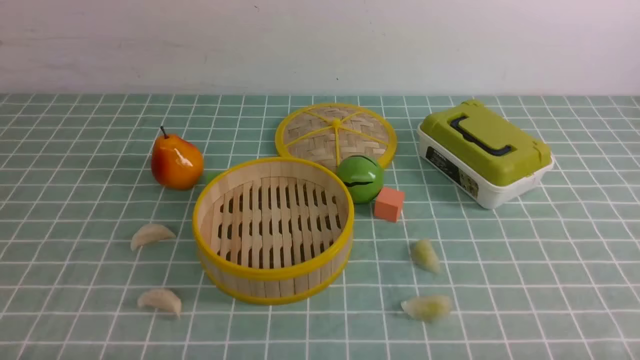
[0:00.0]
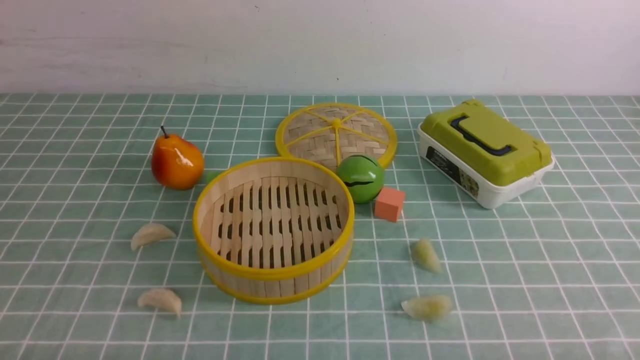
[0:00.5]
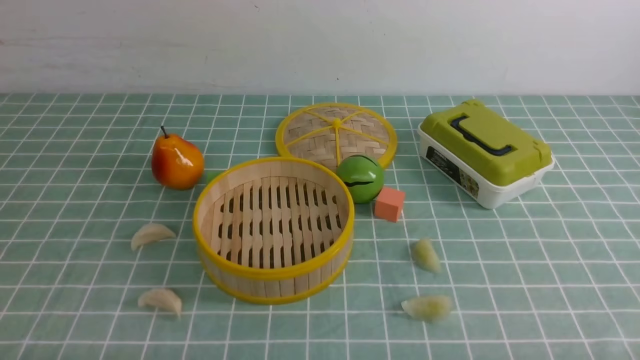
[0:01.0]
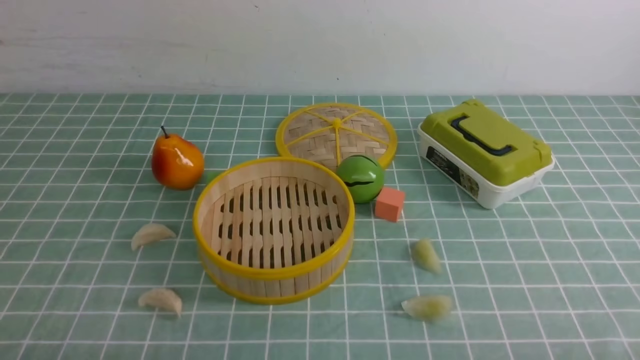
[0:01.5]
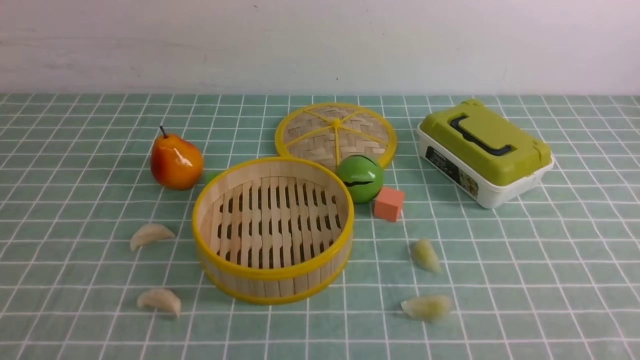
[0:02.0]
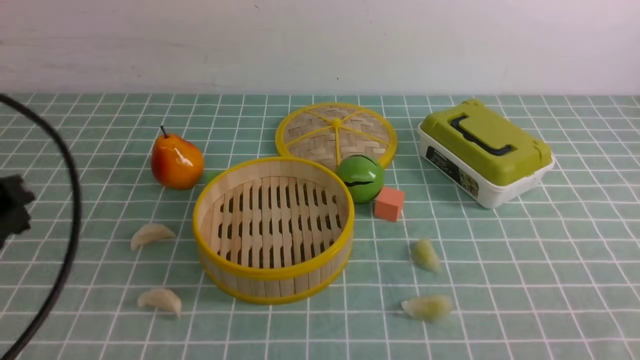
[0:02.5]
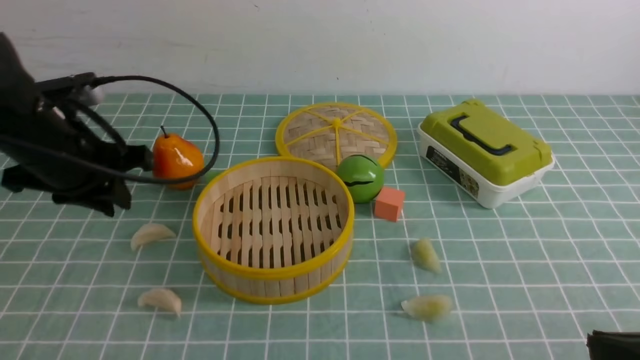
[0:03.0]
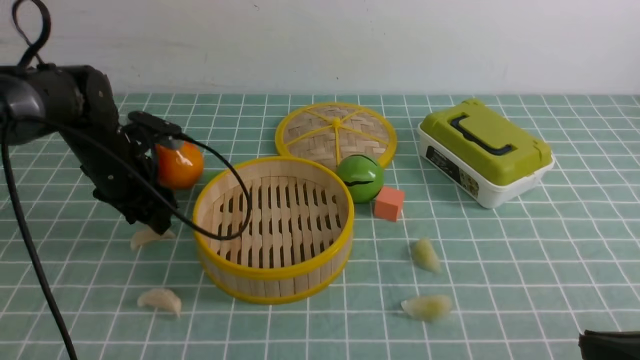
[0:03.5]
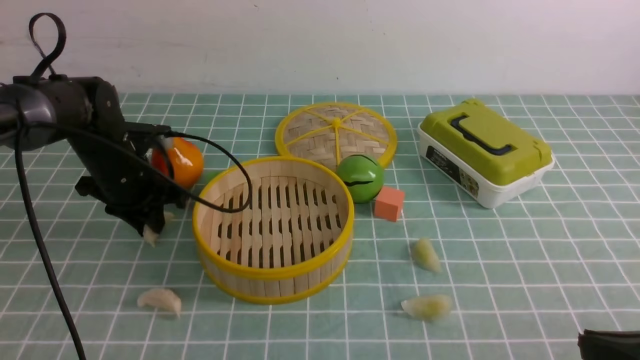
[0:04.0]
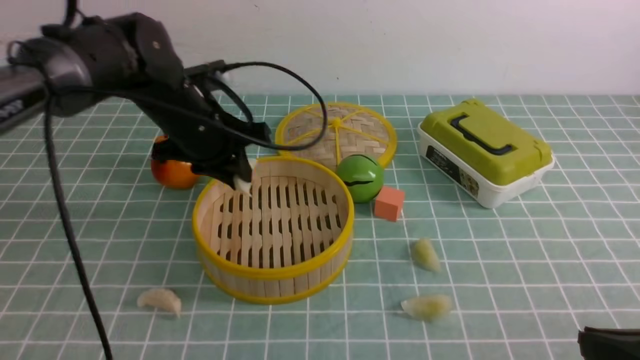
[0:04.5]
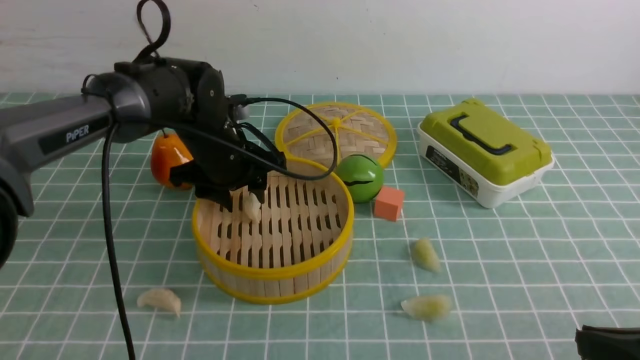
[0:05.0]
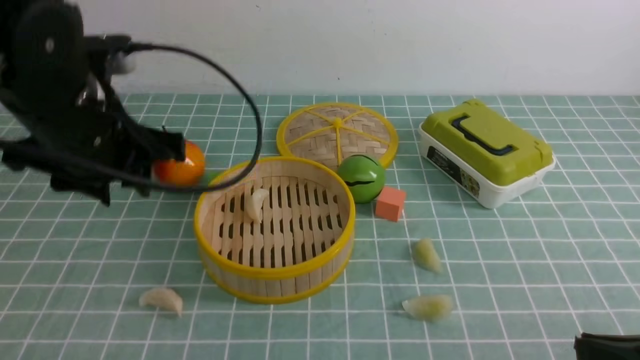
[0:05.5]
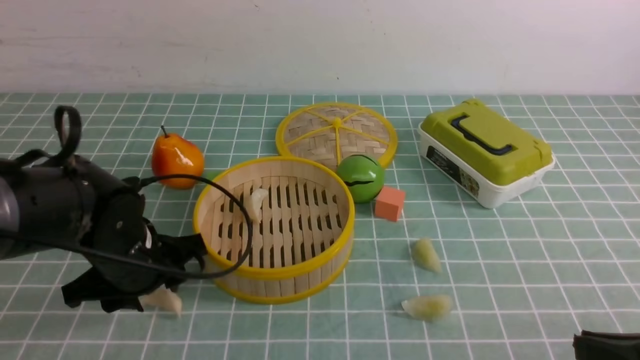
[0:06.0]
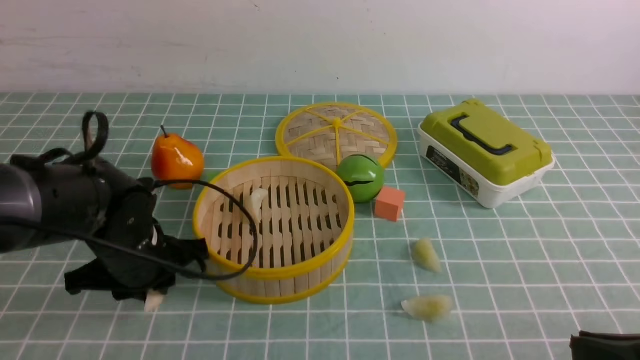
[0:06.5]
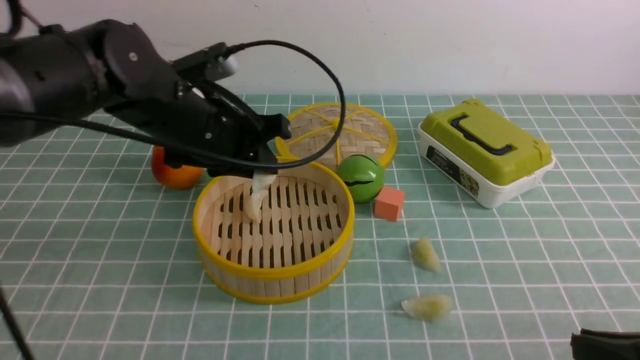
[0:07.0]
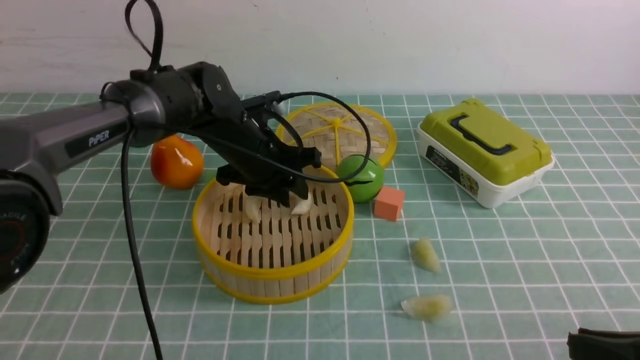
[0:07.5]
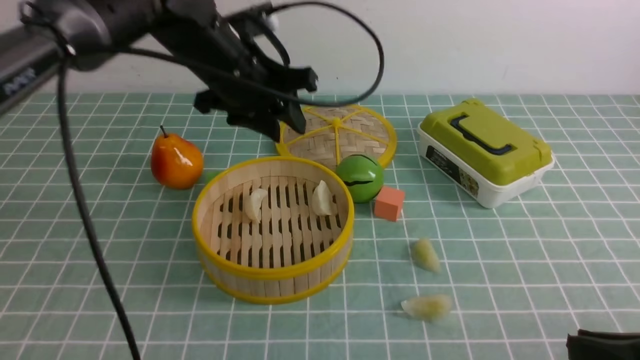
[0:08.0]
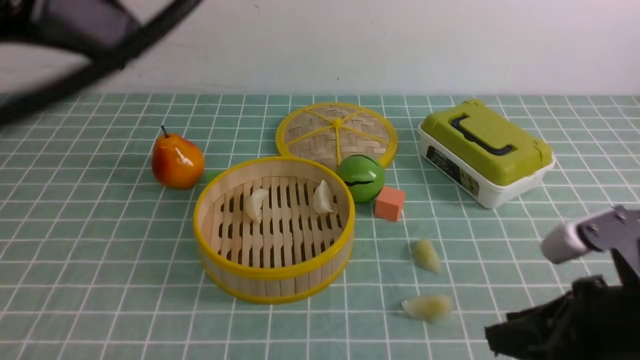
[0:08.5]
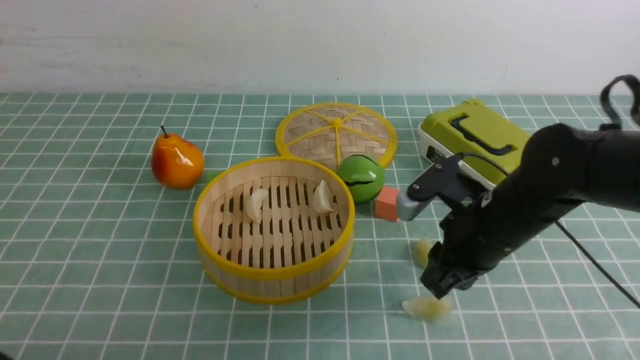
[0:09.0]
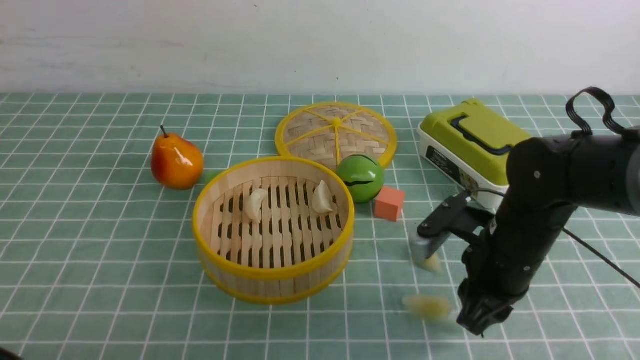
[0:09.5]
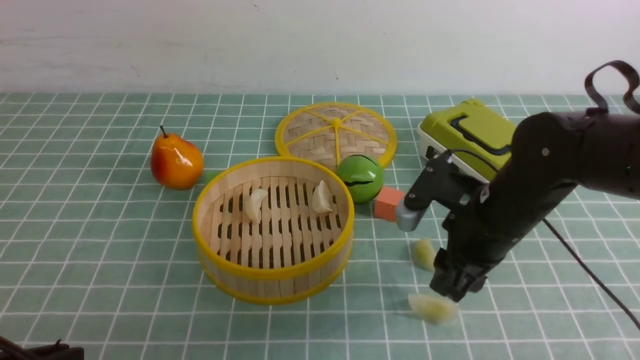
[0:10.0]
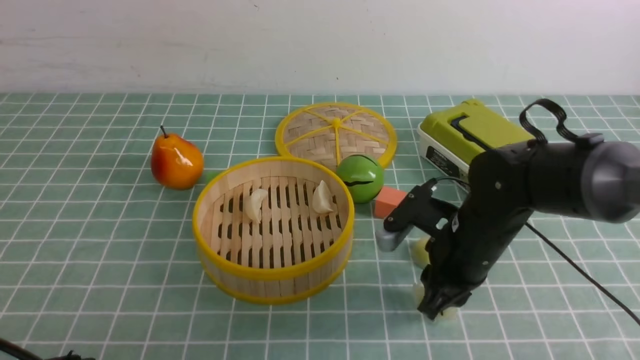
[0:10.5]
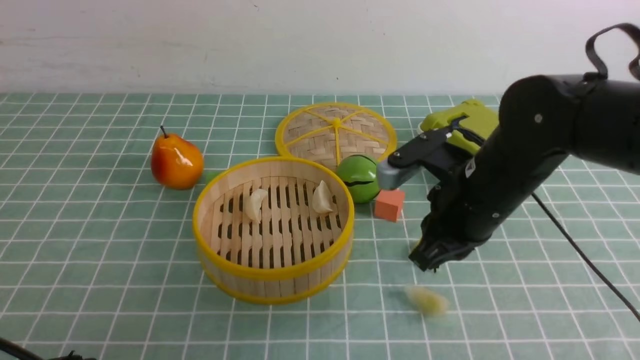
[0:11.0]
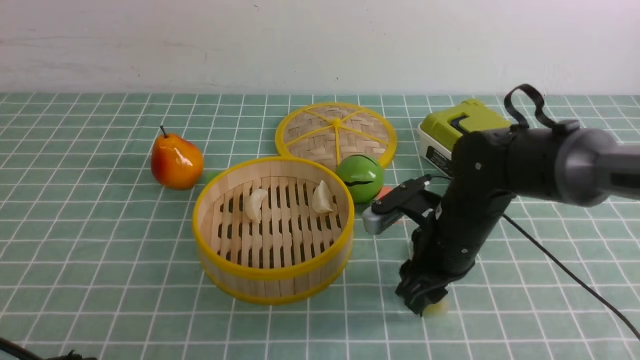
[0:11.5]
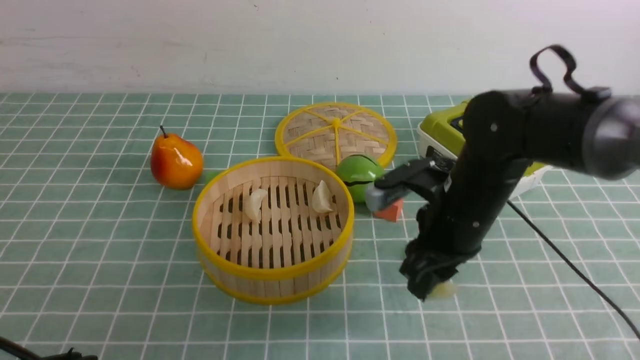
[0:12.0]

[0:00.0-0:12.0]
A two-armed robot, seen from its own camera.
Task of the whole recording: put the dumplings into the steamer on the table with the blue tablecloth.
Step, 0:00.0 to 0:04.0: use the left arm to grab a dumpling.
Step, 0:04.5 to 0:05.0: use the left arm to put the dumpling into the steamer.
Step, 0:06.0 to 0:06.5: use the left arm to grab a dumpling.
Step, 0:07.0 to 0:07.5: use the left arm to put the dumpling into the steamer.
0:02.0 to 0:04.0: The left gripper moves forward, some 40 cm, and opens and closes again. The right gripper travels forward by roughly 10 cm.
0:04.0 to 0:06.0: The left gripper travels backward by some 15 cm, and opens its fingers.
0:06.0 to 0:08.0: The left gripper goes up and down, roughly 15 cm each way, reversing 2 times.
0:08.0 to 0:10.0: The left gripper travels backward by approximately 30 cm, and closes. The right gripper is displaced forward and to the left by about 25 cm, and opens.
0:10.0 to 0:12.0: The right gripper shifts by roughly 5 cm, and closes, then opens again.

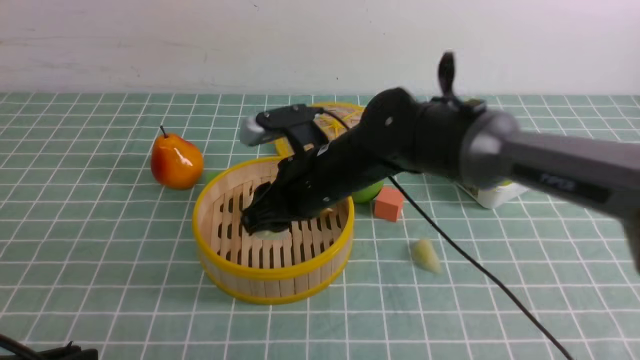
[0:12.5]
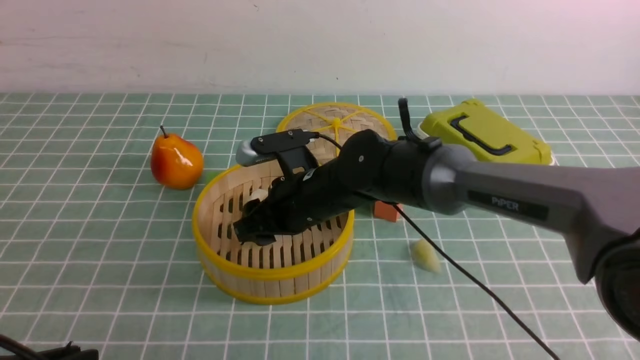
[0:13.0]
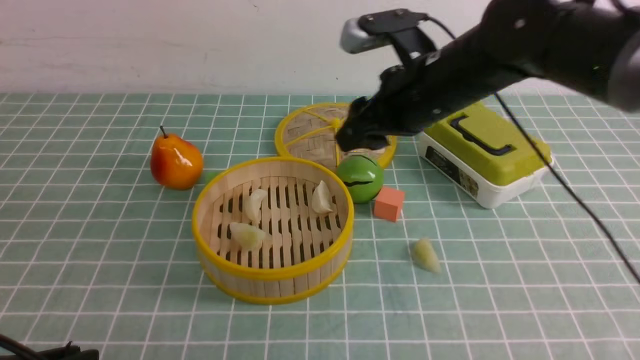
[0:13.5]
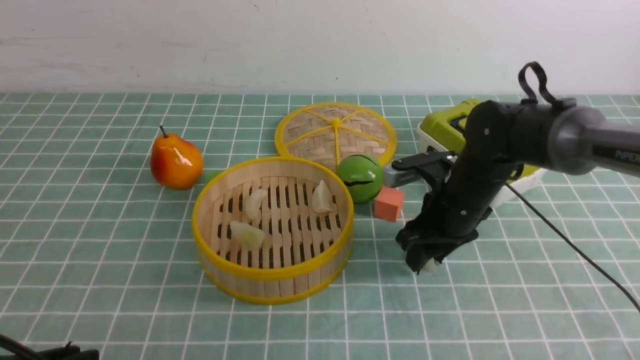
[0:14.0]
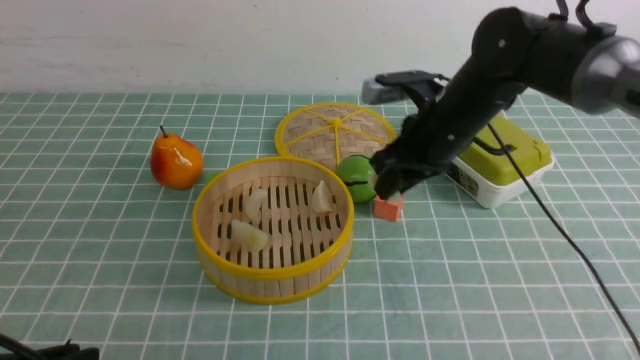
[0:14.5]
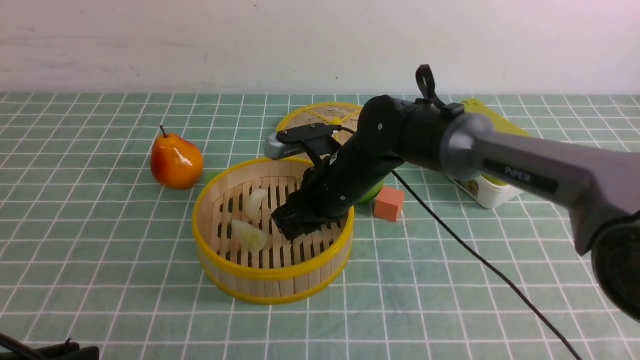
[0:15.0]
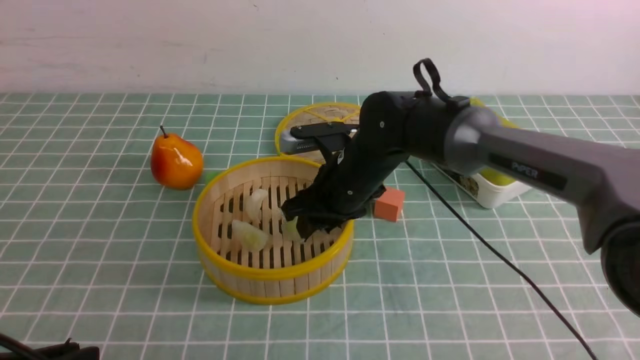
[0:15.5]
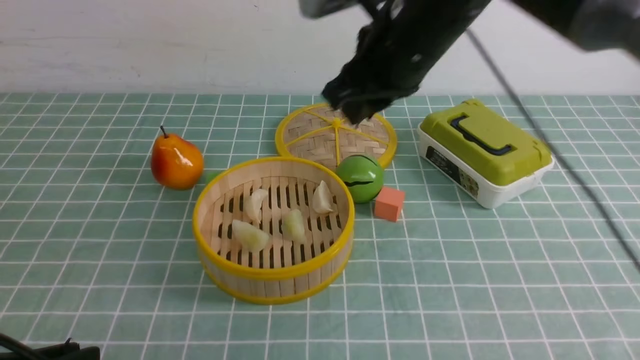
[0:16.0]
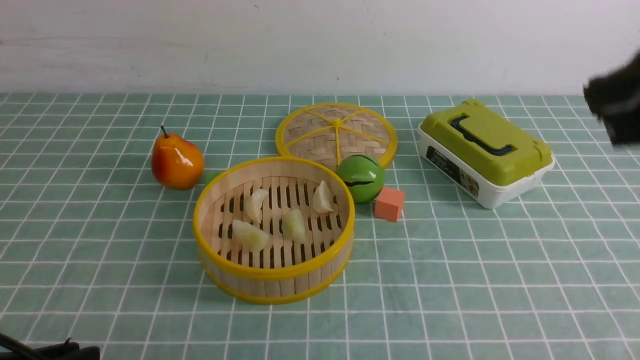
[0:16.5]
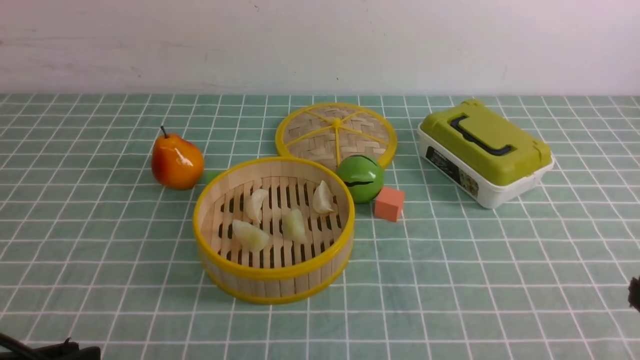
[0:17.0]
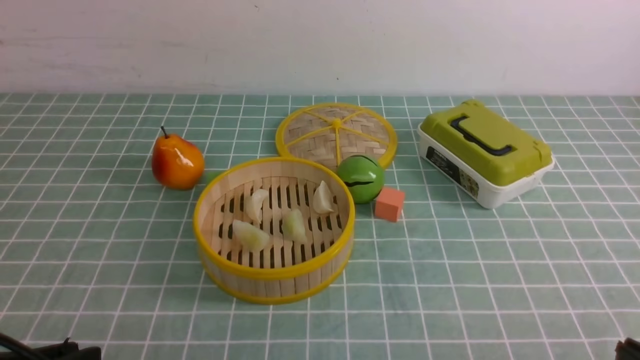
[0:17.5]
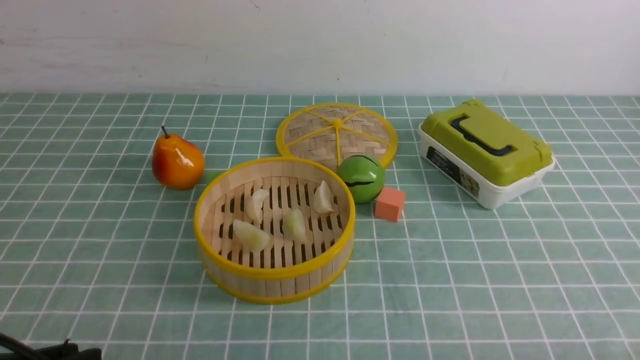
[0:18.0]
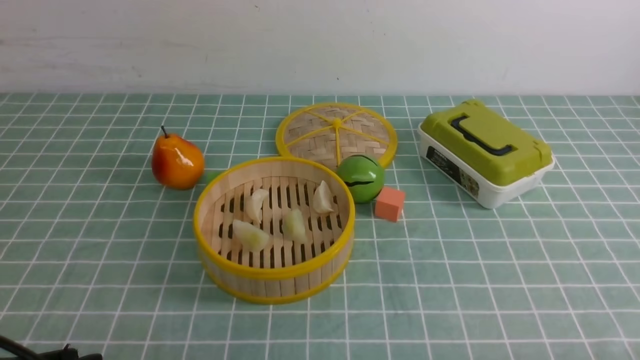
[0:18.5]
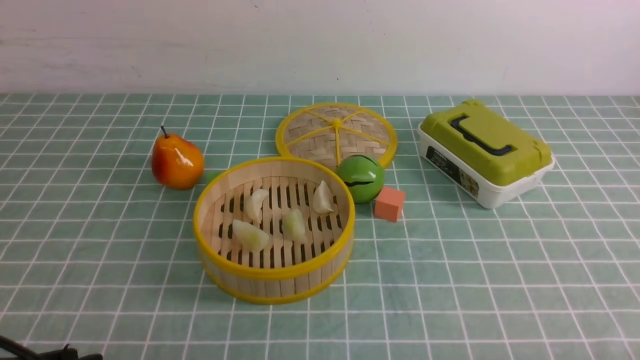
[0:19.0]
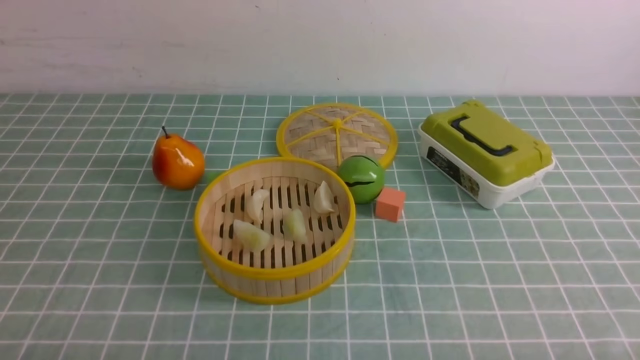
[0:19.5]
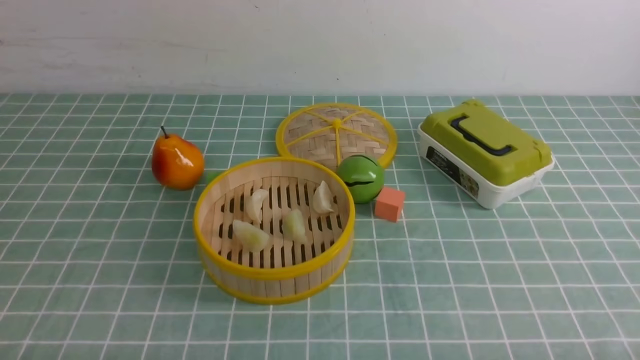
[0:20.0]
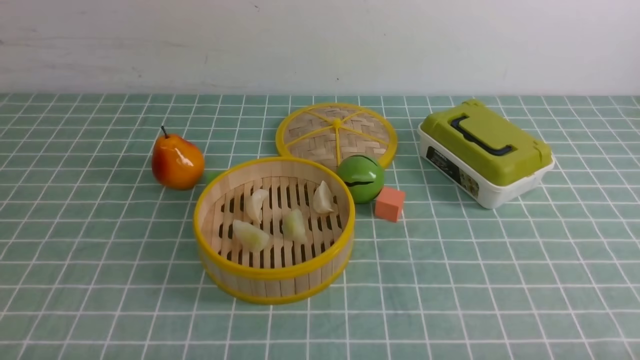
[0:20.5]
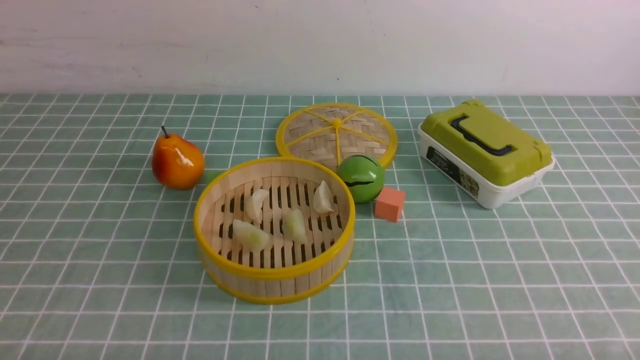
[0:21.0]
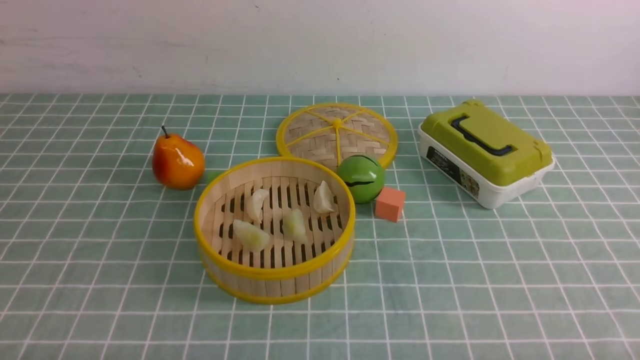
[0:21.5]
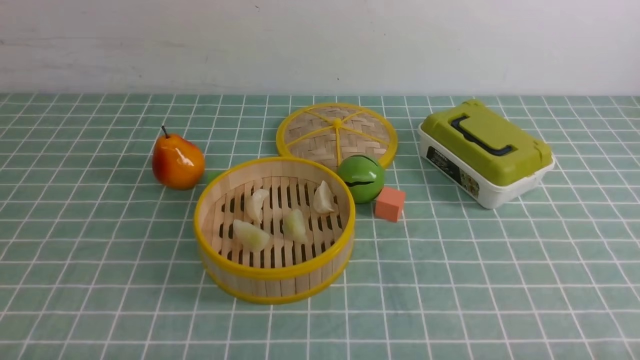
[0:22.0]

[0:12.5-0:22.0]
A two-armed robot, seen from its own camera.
Task of the whole recording: put the dumplings into the steamer on the table with the blue tablecloth.
Step, 0:13.5 to 0:14.5: use the right arm to grab a dumpling.
Step, 0:15.0 to 0:15.5: use the right arm to put the dumpling into the steamer.
0:12.5 to 0:14.5: The right gripper travels to the right by some 10 cm.
0:14.5 to 0:16.5: The right gripper heads backward, upward and to the right, covering roughly 30 cm, and closes its fingers.
0:16.5 to 0:18.0: The right gripper shifts approximately 30 cm downward and backward.
0:18.0 to 0:20.0: The left gripper travels downward by about 10 cm, and closes.
0:20.0 to 0:22.0: The two grippers keep their place.
